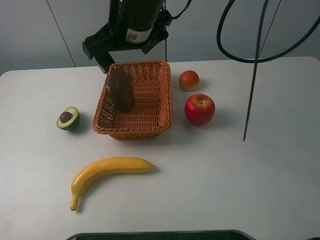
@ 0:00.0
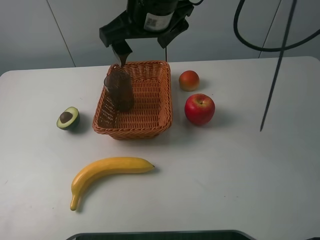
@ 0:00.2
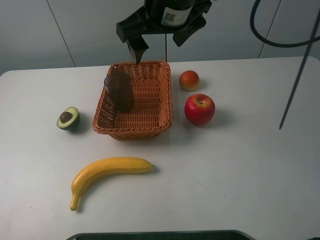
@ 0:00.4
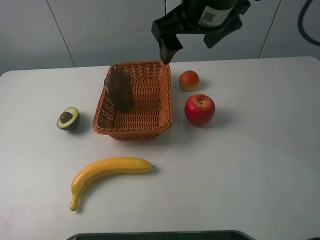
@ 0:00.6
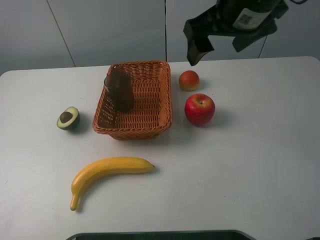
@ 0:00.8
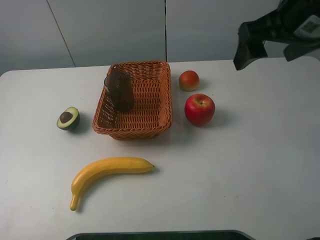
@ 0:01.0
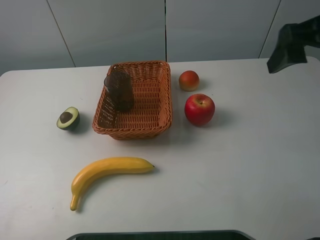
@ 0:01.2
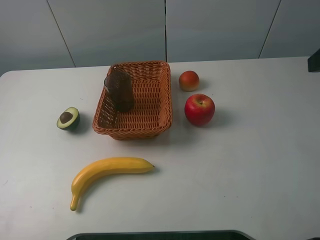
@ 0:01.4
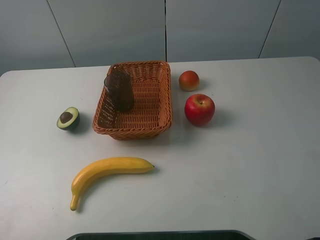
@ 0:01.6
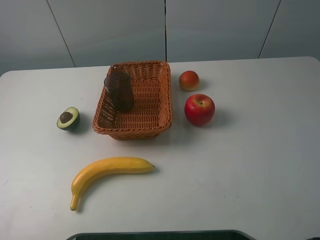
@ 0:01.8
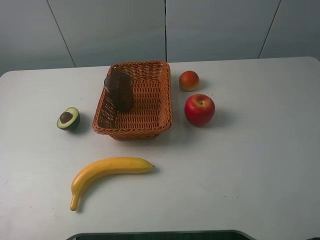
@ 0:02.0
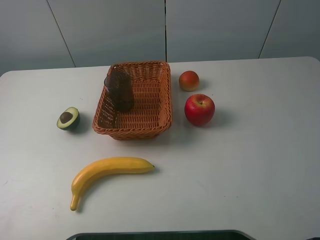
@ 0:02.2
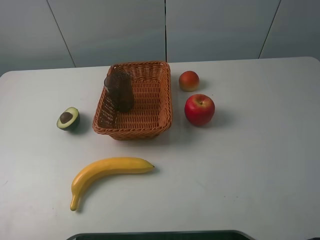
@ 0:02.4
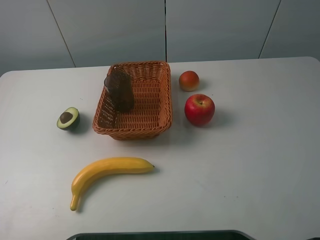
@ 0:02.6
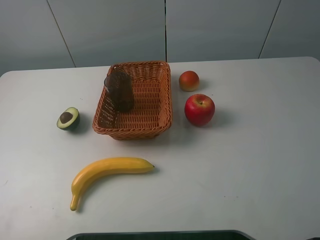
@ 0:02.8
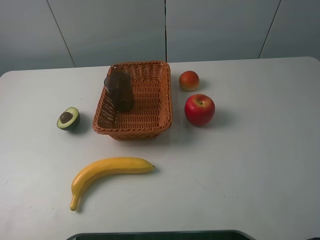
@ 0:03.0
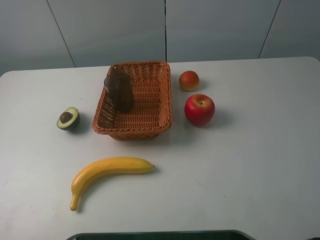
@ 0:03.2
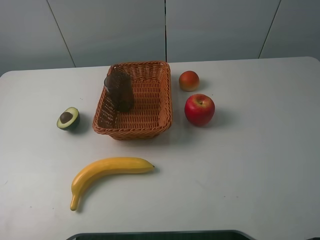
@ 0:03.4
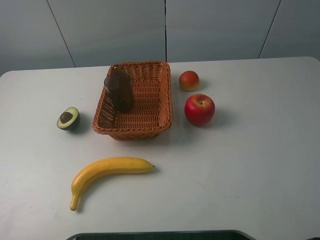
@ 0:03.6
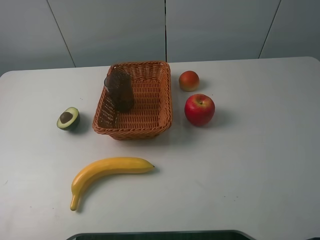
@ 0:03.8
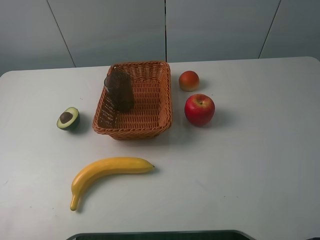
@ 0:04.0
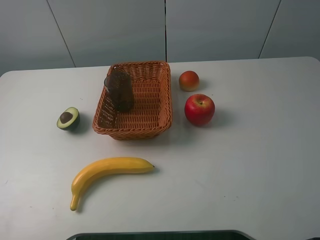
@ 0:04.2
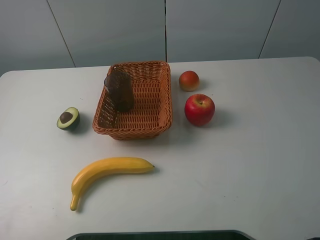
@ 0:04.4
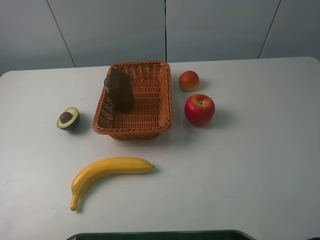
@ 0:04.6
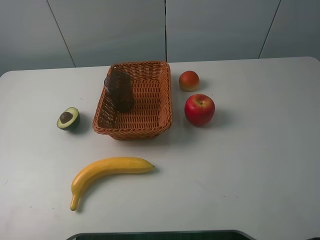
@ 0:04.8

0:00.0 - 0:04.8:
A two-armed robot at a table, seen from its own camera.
0:00.0 - 0:01.6: The right gripper heads to the right and backward, covering about 35 cm.
